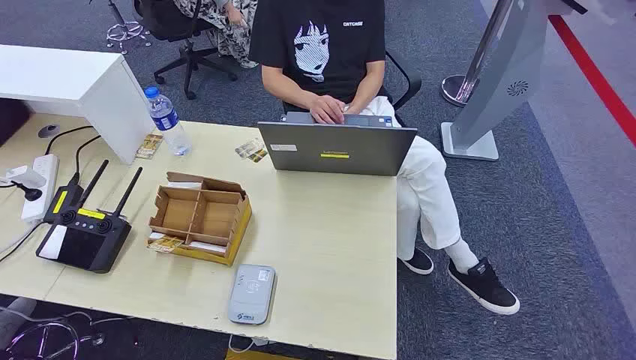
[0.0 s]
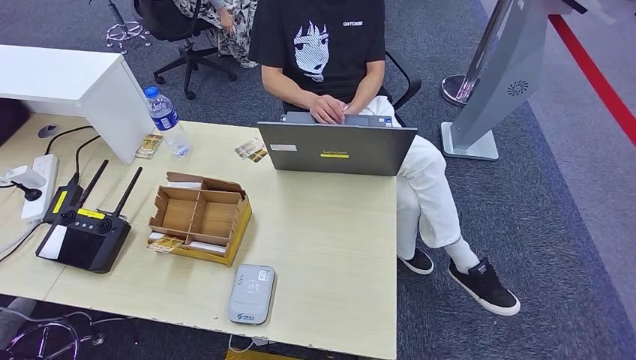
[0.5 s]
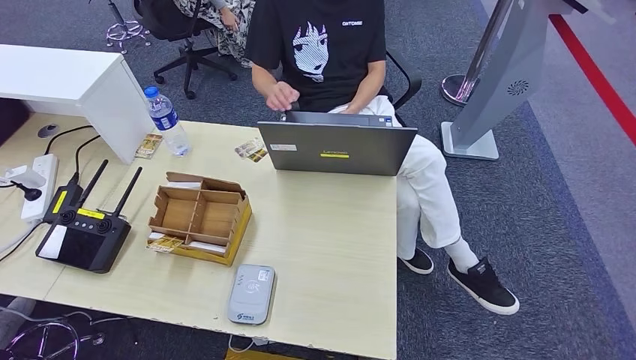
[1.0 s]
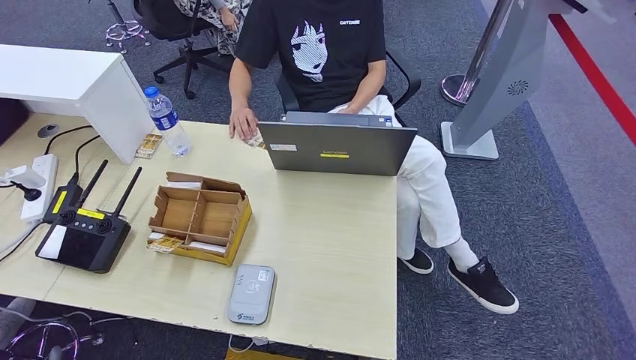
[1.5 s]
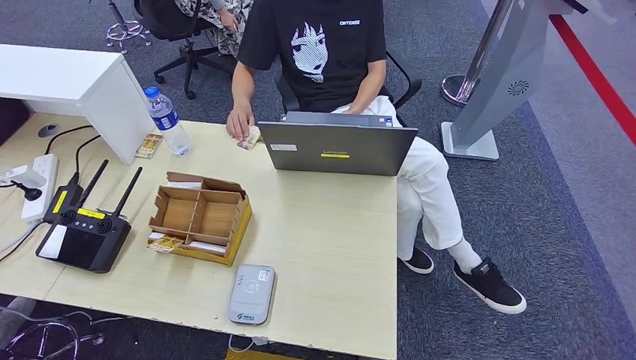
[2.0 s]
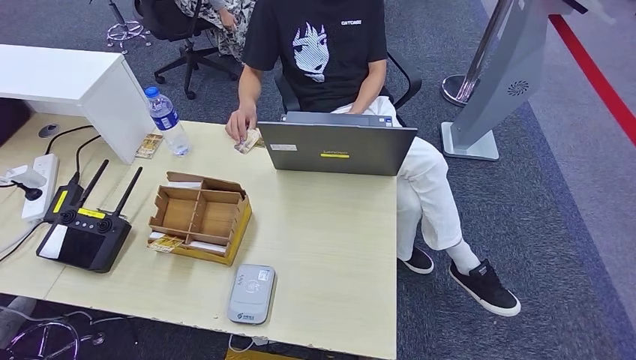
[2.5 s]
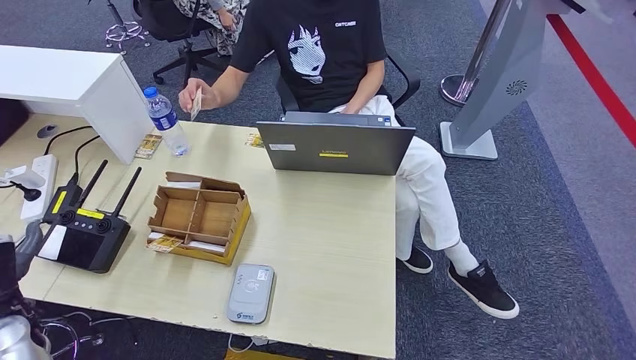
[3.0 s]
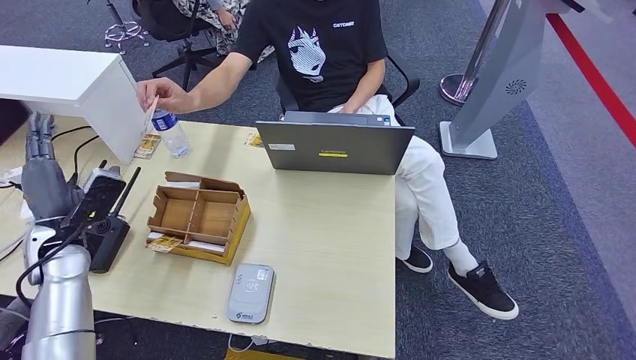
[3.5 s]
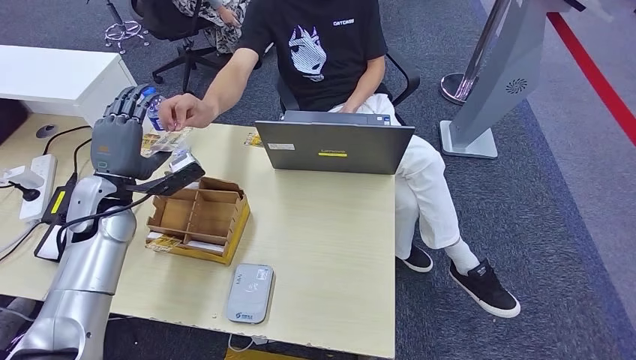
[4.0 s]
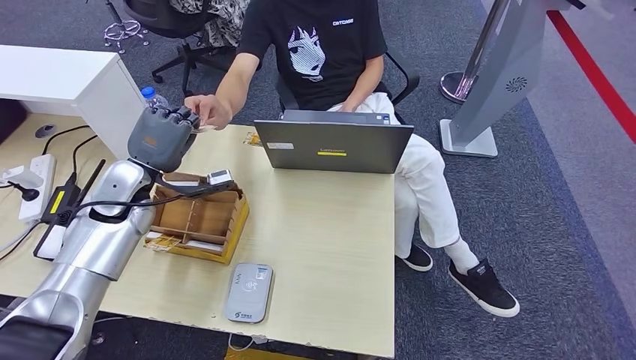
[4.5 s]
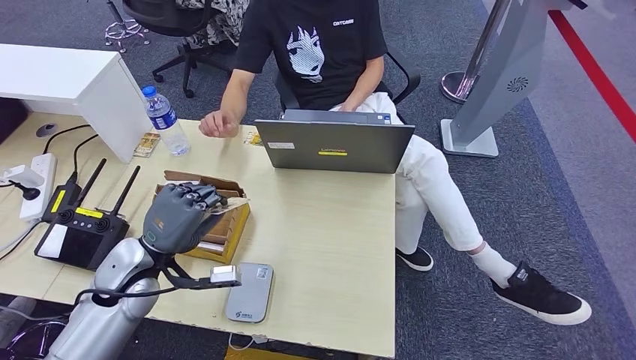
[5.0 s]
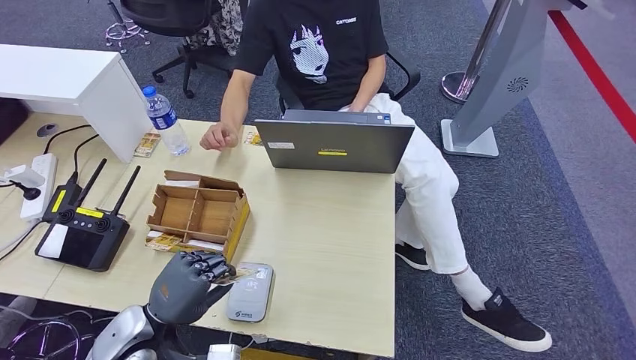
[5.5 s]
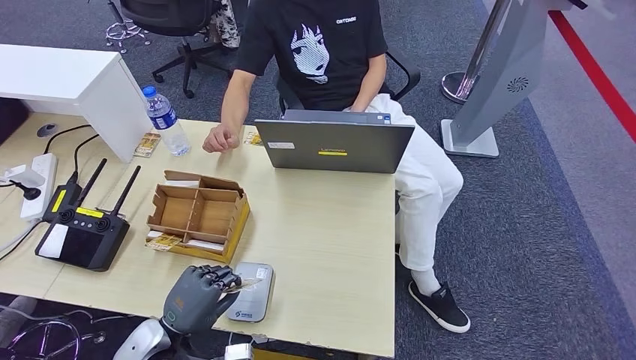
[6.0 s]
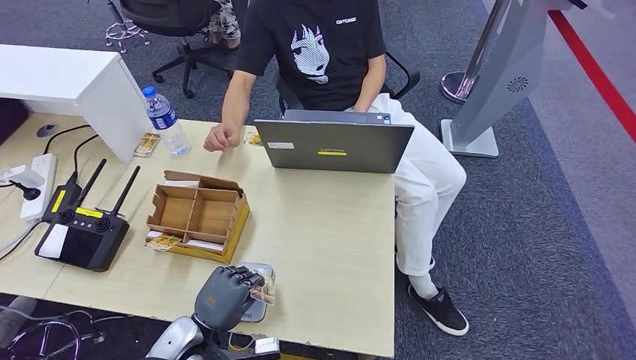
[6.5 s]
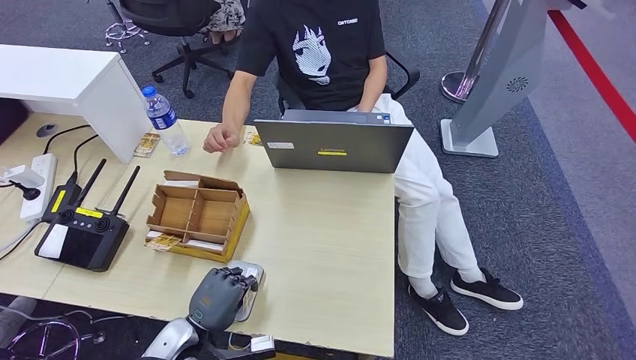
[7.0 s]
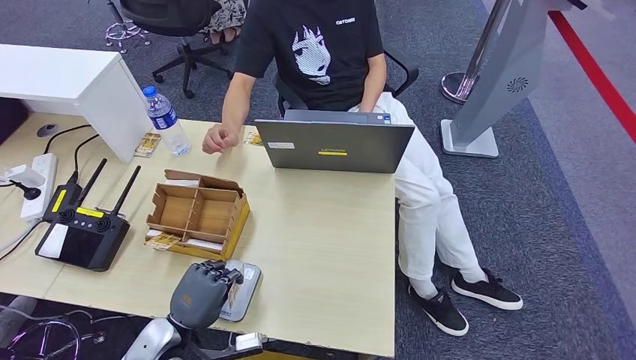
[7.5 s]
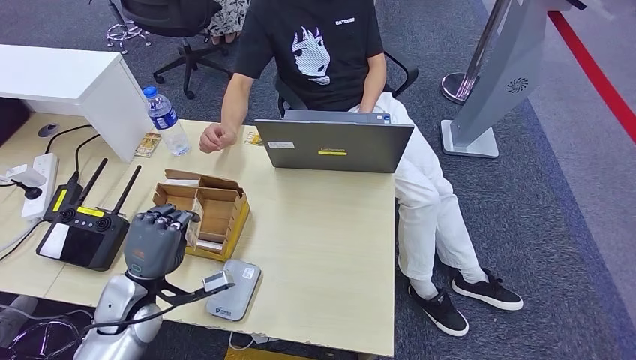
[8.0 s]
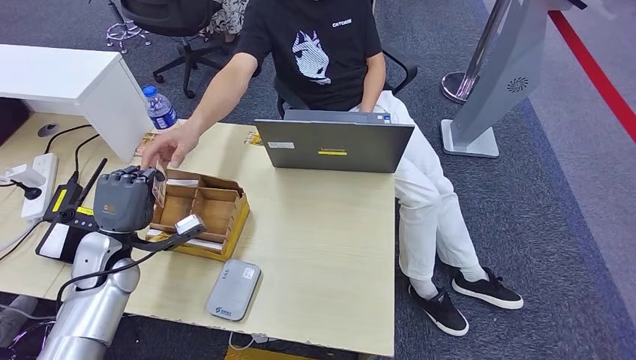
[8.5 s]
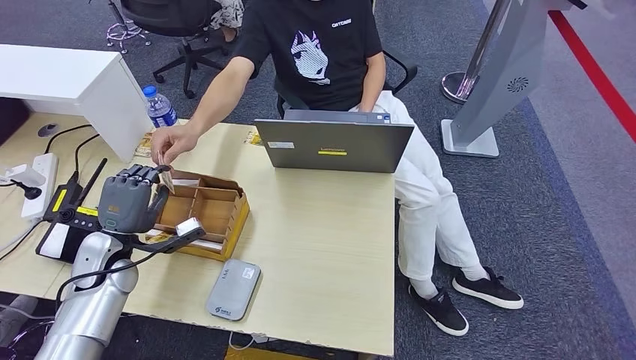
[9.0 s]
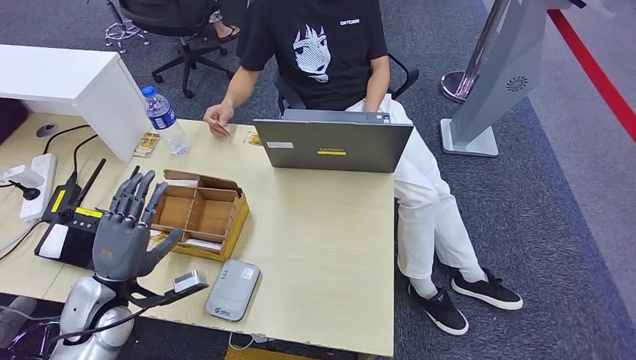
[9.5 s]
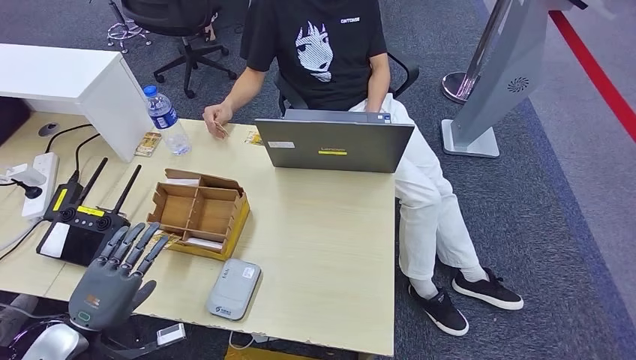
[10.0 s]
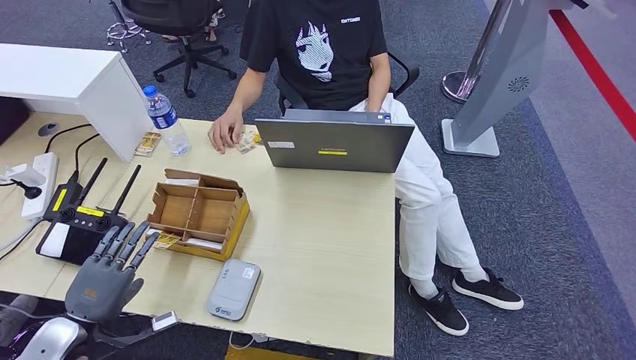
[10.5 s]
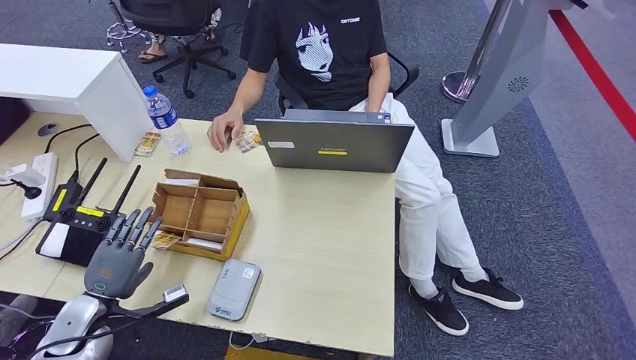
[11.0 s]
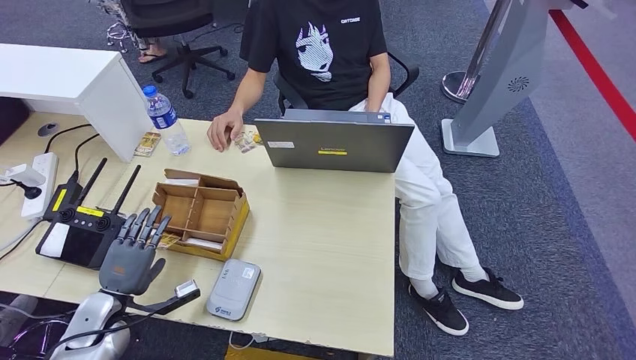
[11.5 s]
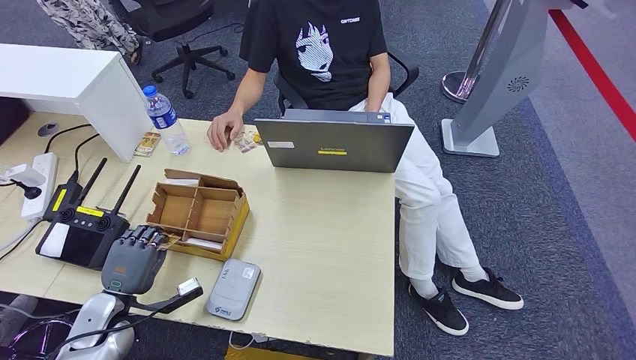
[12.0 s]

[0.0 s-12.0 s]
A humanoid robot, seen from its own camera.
Step, 0.0 to 5.0 s: Take the ID card from the person's hand.
Step, 5.5 to 6.5 s: Place the ID card on the card reader.
Step, 7.5 to 9.5 s: Hand the ID card to the person.
2.0 to 4.0 s: The left hand travels forward, upward and to the right by approximately 40 cm.
6.0 to 8.0 s: The left hand goes approximately 5 cm forward.
8.0 to 10.0 s: The left hand shifts about 10 cm backward and to the left.
10.0 to 12.0 s: The left hand moves downward and forward, about 10 cm.

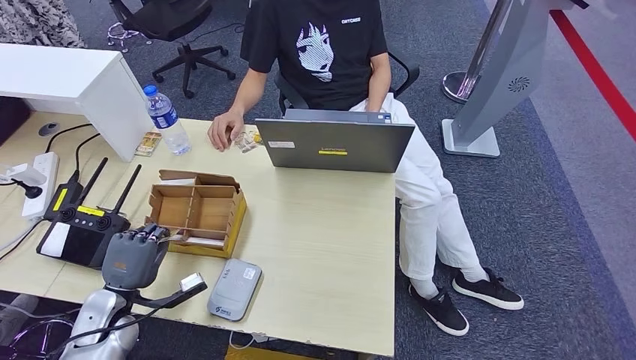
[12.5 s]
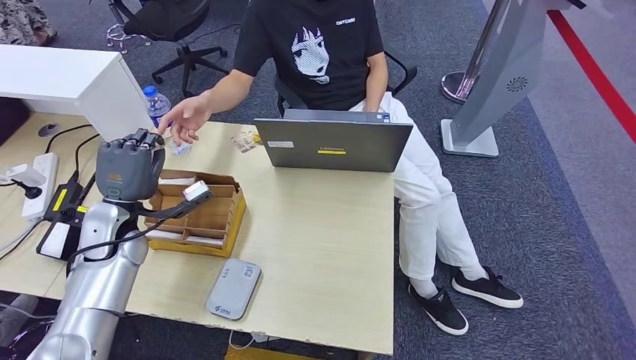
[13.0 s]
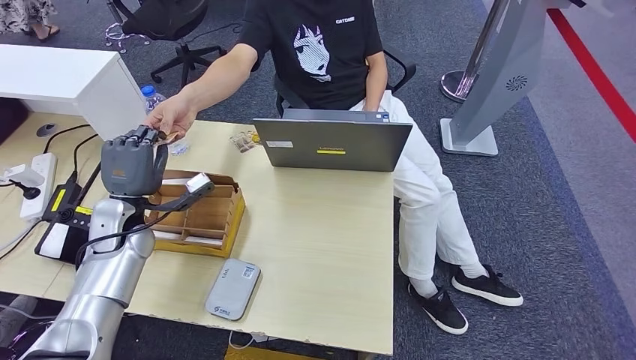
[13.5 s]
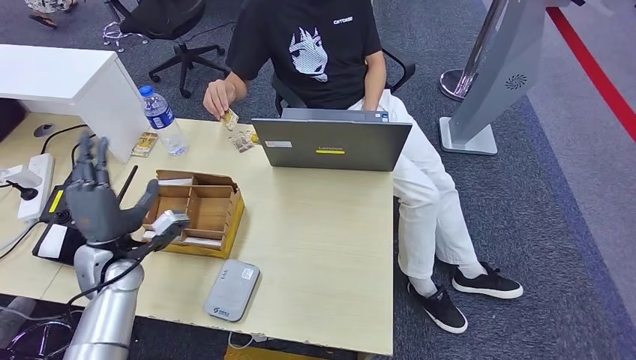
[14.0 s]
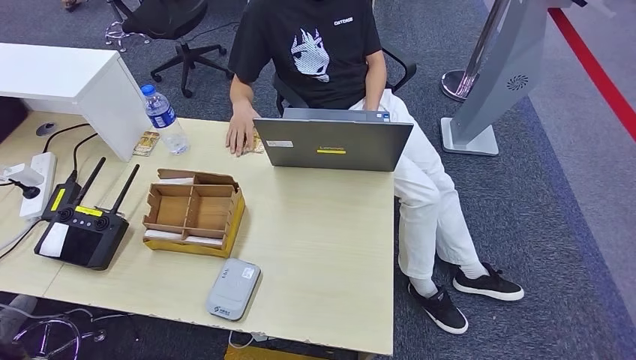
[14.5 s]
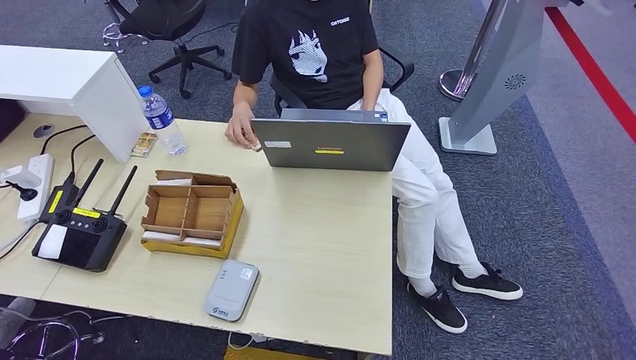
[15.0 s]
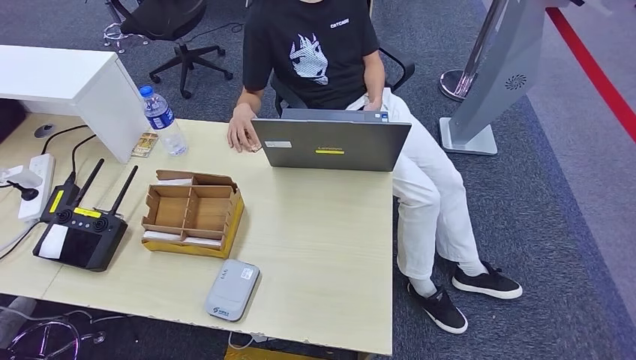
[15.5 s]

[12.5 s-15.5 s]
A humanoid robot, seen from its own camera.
Step, 13.0 to 15.5 s: Hand the room key to the person.
12.5 to 14.0 s: The left hand shifts approximately 10 cm upward and forward.
14.0 to 15.5 s: The left hand goes some 35 cm backward and downward.
